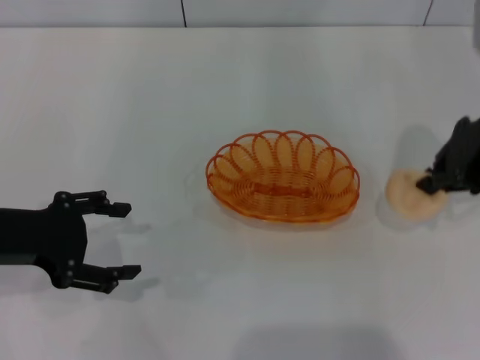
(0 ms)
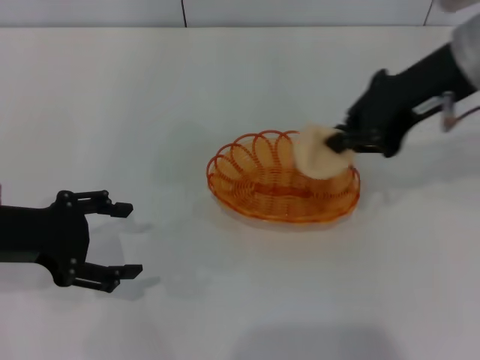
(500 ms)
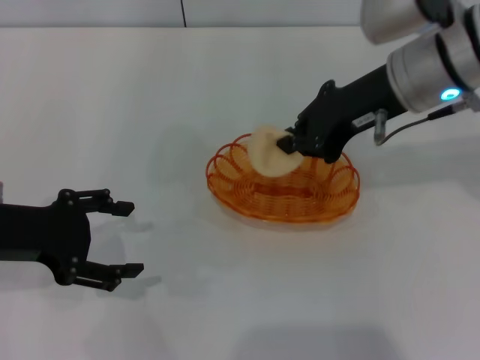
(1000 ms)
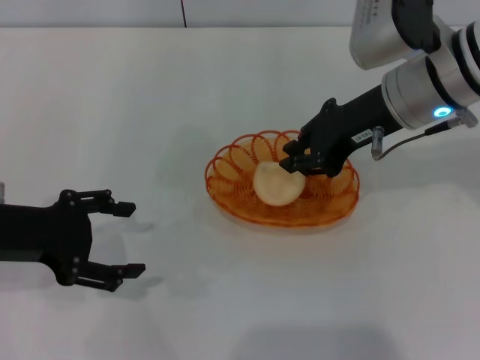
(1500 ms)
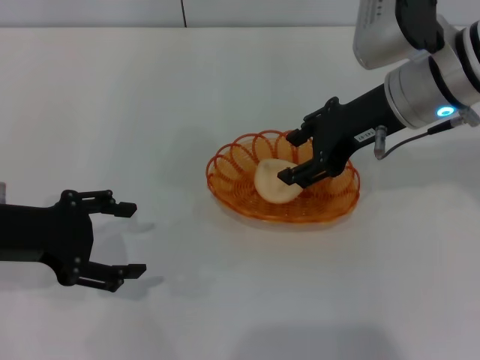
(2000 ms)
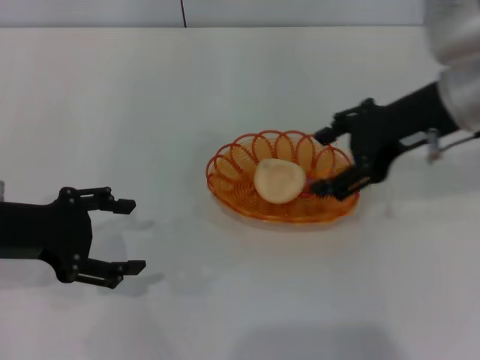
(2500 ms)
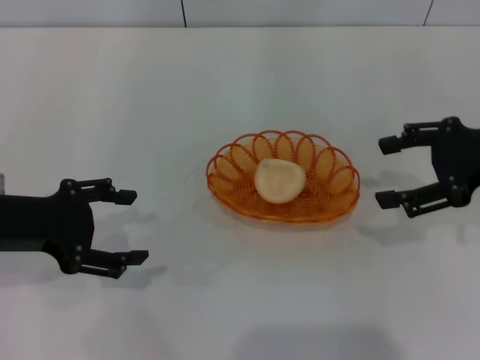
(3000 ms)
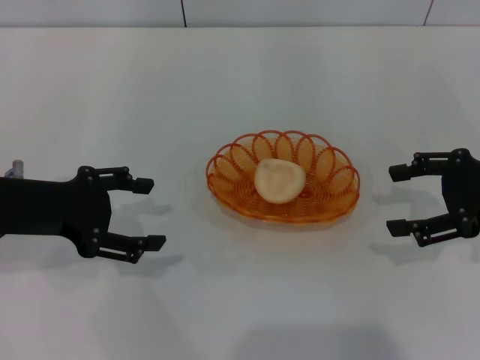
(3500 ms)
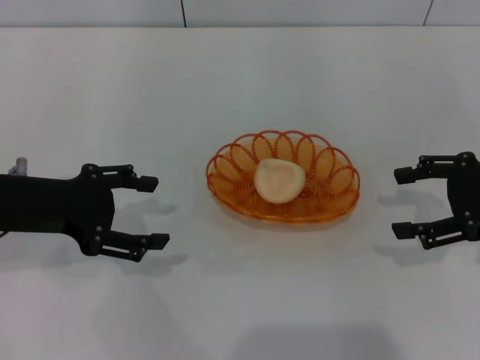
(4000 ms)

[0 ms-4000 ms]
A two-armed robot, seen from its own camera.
Step, 500 ms to 2500 ms: Place the egg yolk pastry into the basket with the right gripper.
0 ms to 2000 ms: The right gripper travels to the left by about 10 cm, and opens its fingers.
2000 ms to 4000 ms: The right gripper shifts some 15 cm to the right and backward, and opens its fingers.
